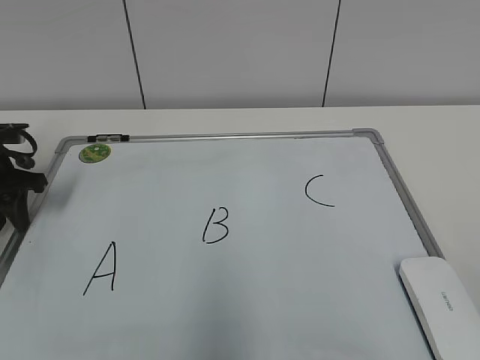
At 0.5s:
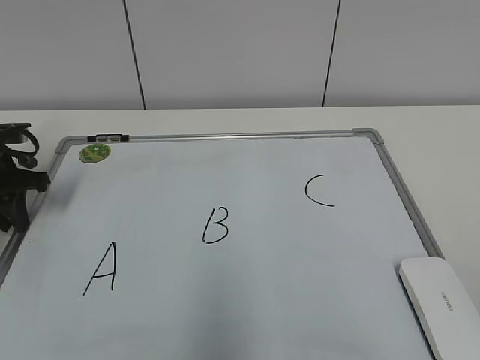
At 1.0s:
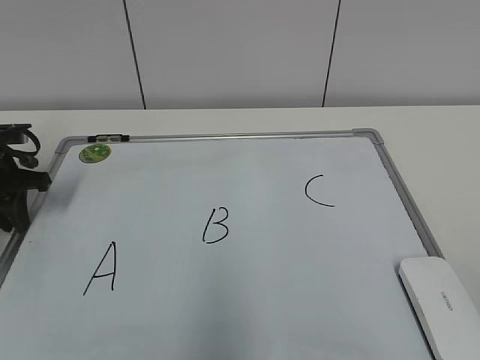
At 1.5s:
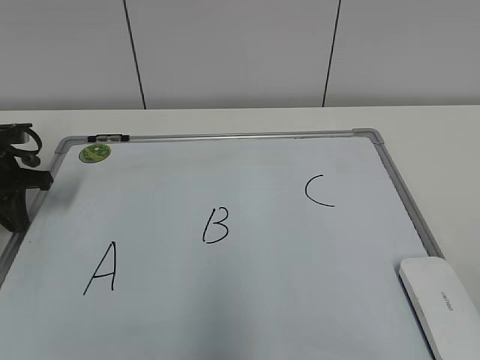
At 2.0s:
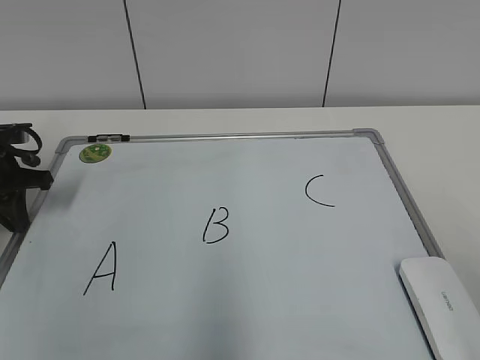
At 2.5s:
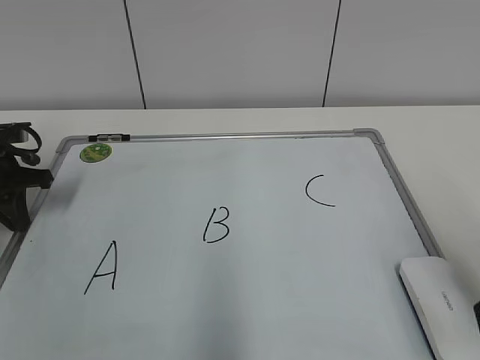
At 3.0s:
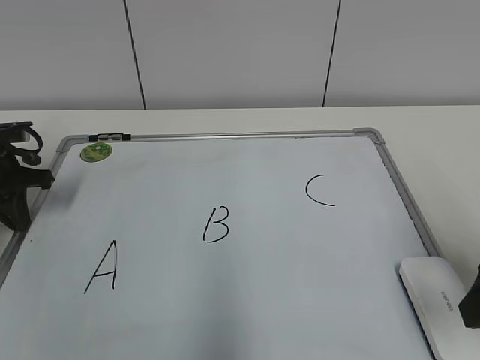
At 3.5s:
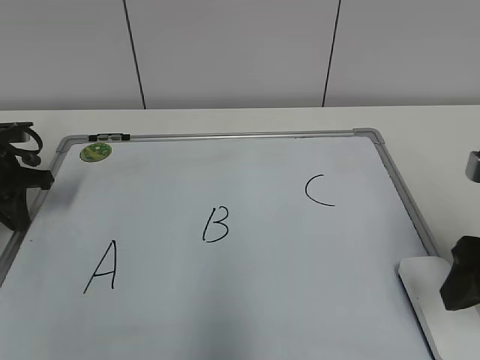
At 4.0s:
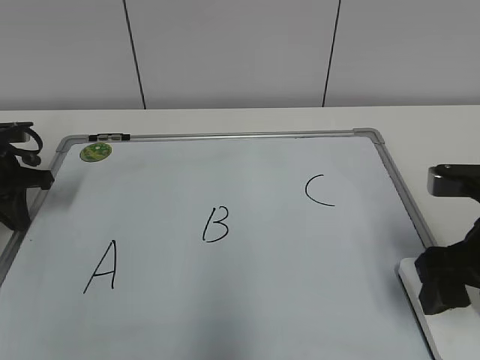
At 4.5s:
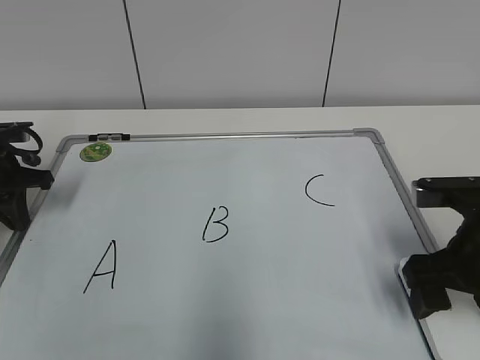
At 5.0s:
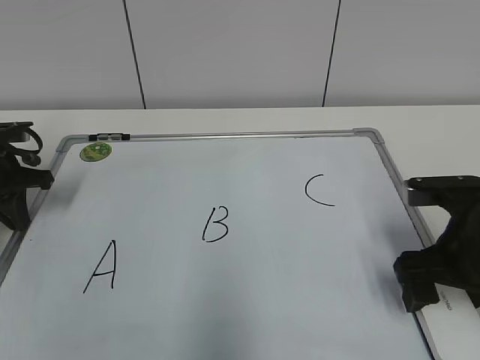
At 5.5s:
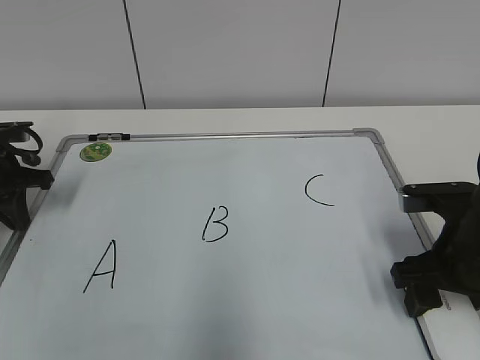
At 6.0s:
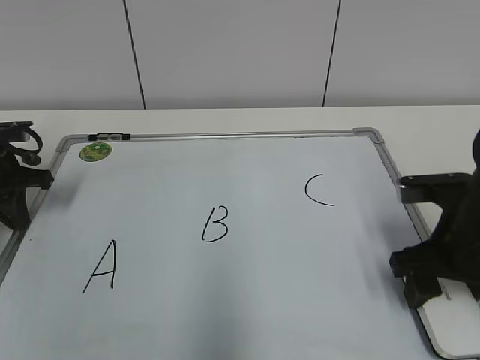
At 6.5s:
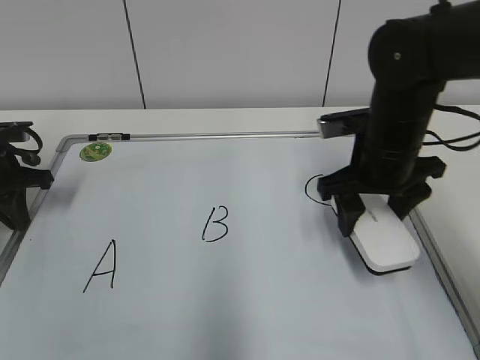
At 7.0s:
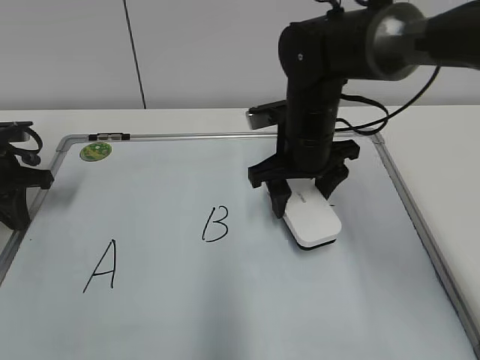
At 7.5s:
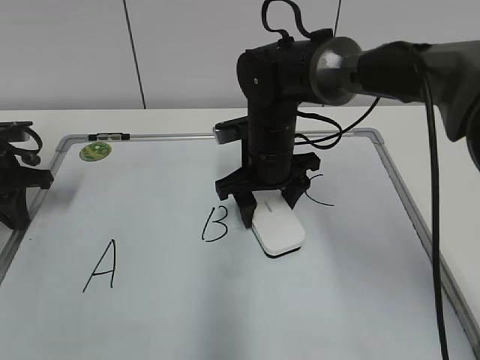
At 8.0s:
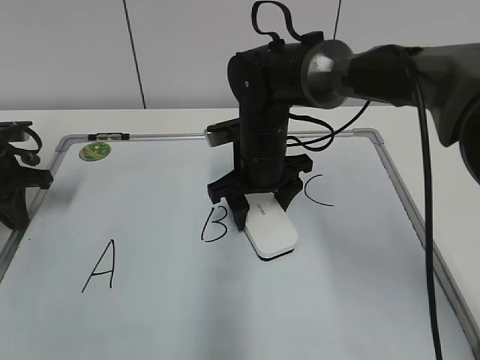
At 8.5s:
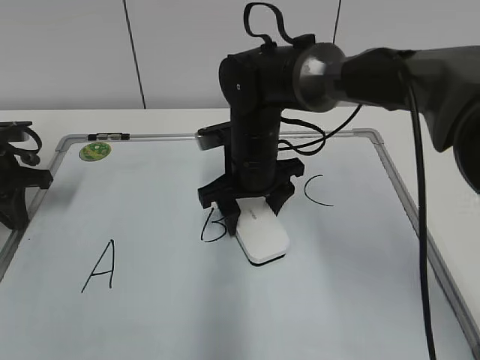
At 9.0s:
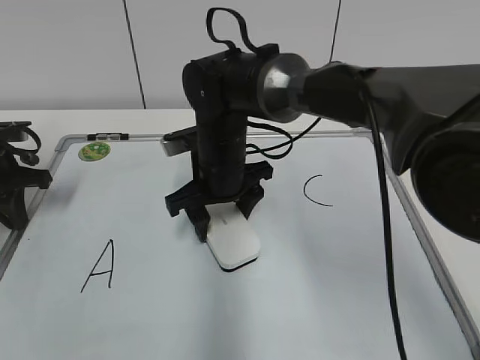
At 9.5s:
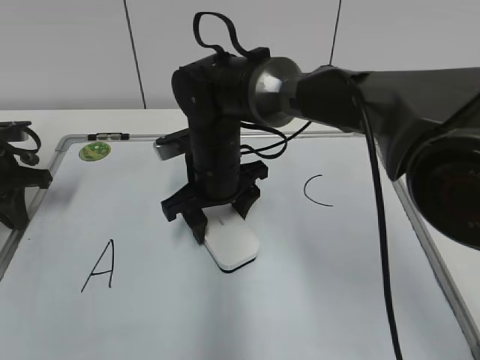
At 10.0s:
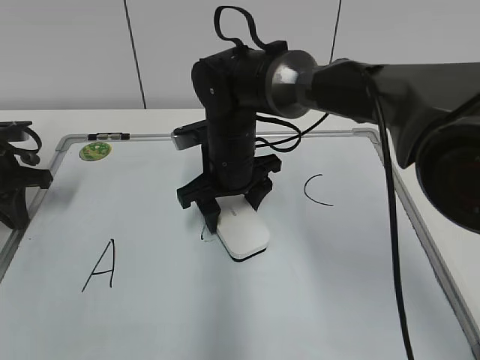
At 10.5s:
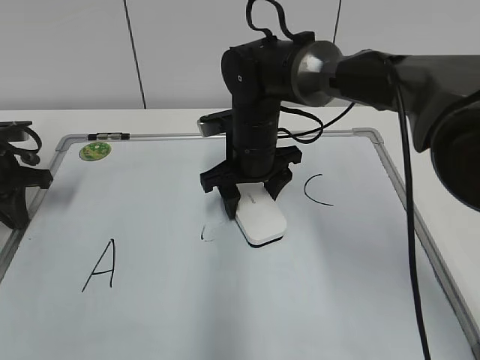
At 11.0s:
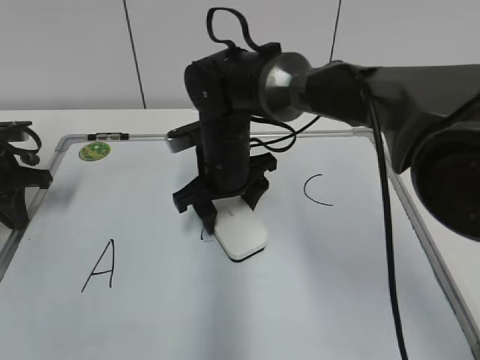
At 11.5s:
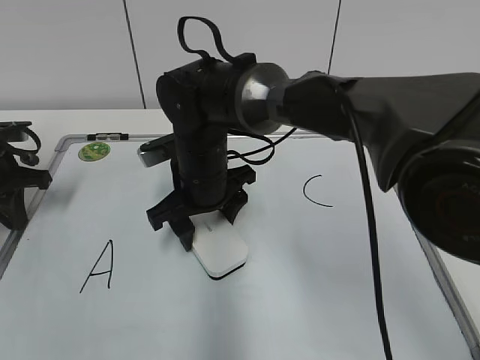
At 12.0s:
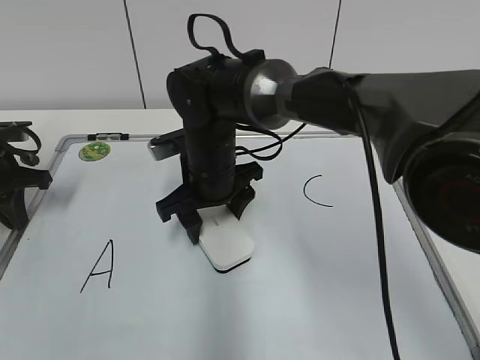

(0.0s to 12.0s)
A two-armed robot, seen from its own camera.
Task of the whole recording: pick up the eraser on the blackboard and erase the letter "B".
Step, 1.5s - 5.5s: Grab the eraser with your right hand.
0.0s - 2.0s: The left gripper closes its fingers.
2.0s - 4.0s: The right gripper heads forward and downward, covering approximately 20 cm.
4.0s - 6.0s: The right gripper moves some 5 cm, and closes.
6.0s - 8.0s: The right gripper is displaced to the left and forward by about 25 cm.
10.0s - 12.0s: The grippers stay close to where they were, moving slightly.

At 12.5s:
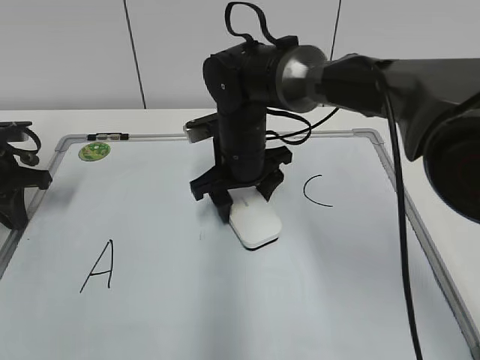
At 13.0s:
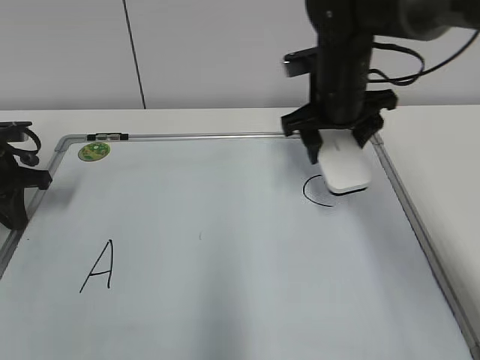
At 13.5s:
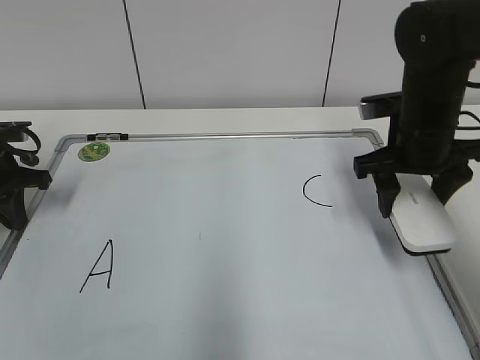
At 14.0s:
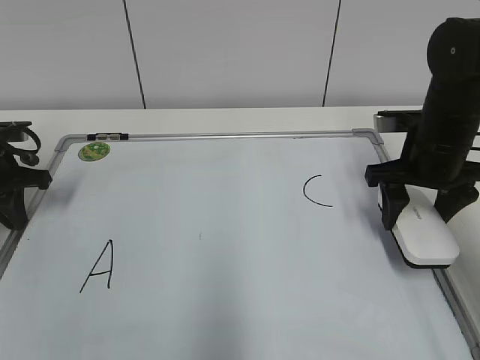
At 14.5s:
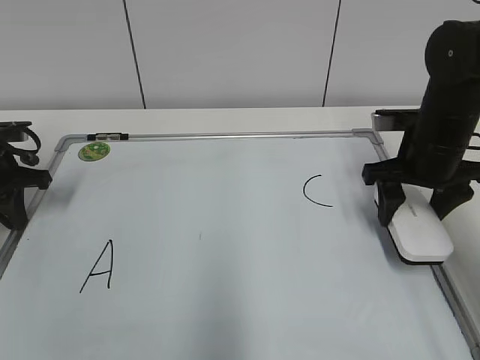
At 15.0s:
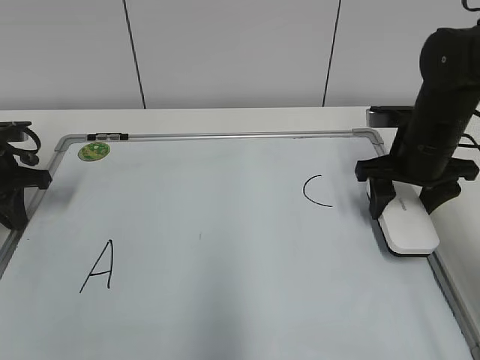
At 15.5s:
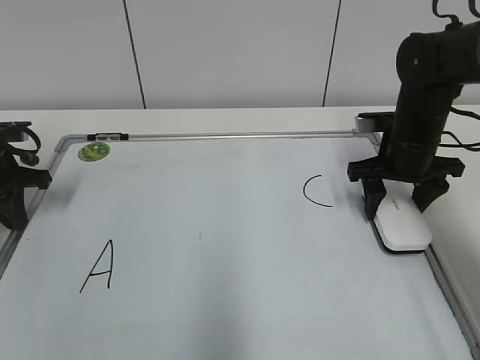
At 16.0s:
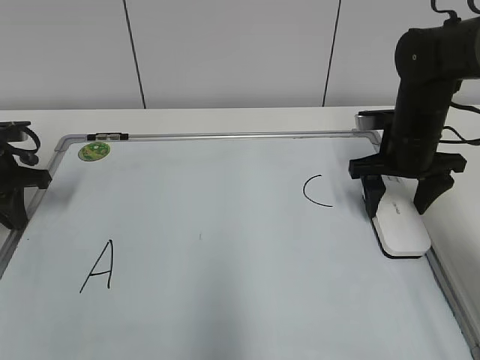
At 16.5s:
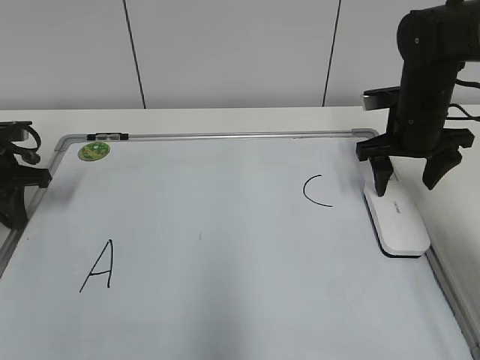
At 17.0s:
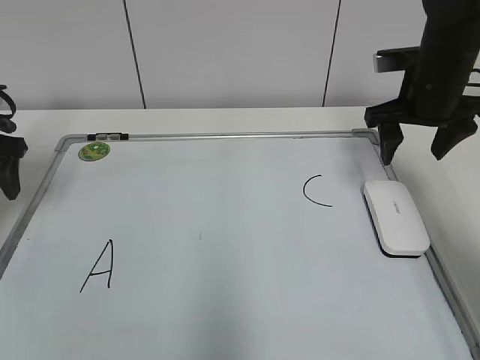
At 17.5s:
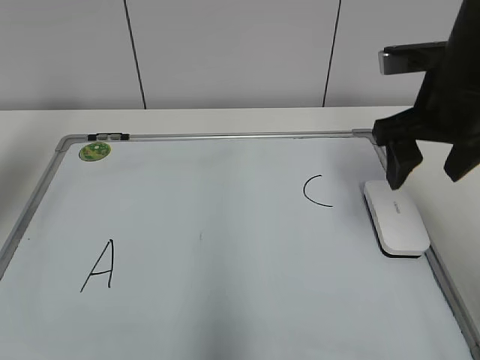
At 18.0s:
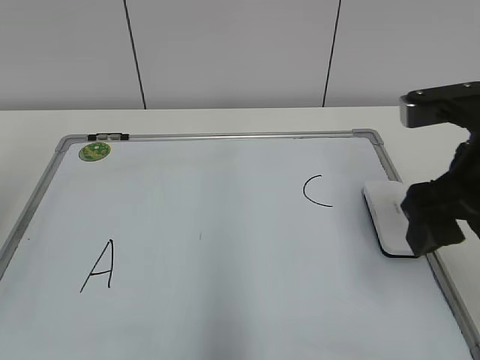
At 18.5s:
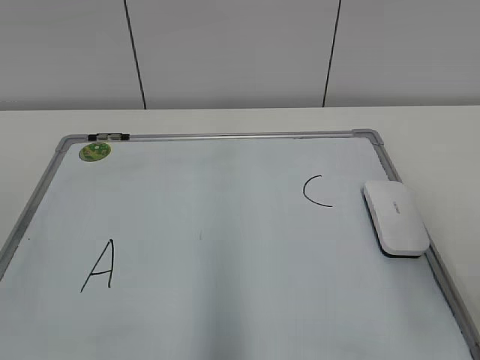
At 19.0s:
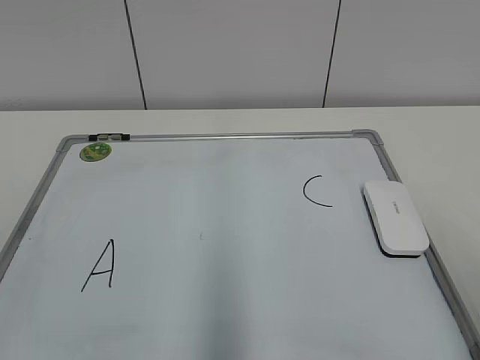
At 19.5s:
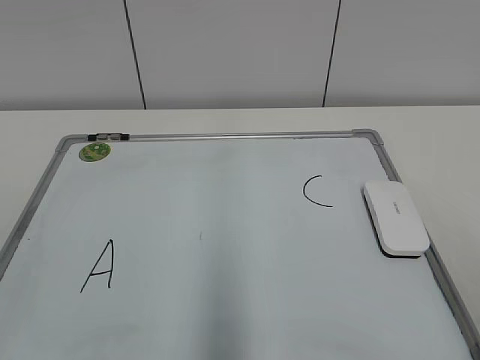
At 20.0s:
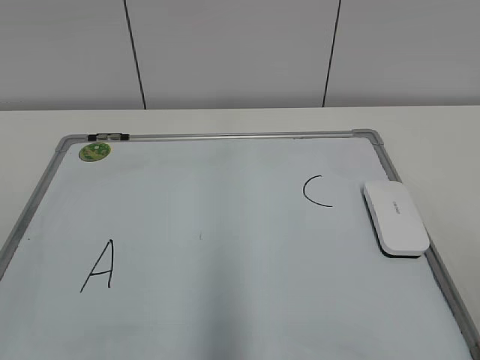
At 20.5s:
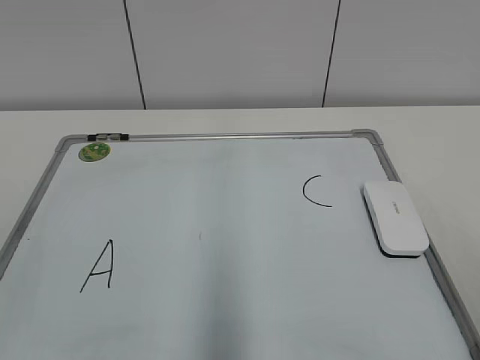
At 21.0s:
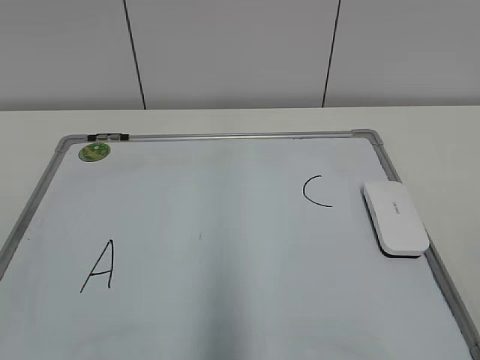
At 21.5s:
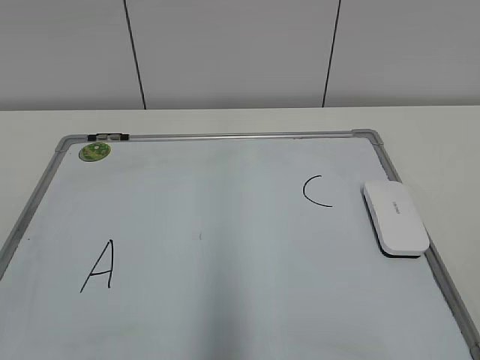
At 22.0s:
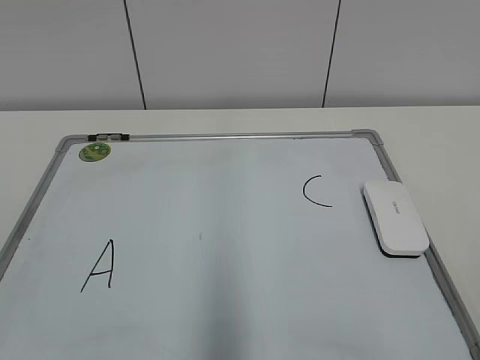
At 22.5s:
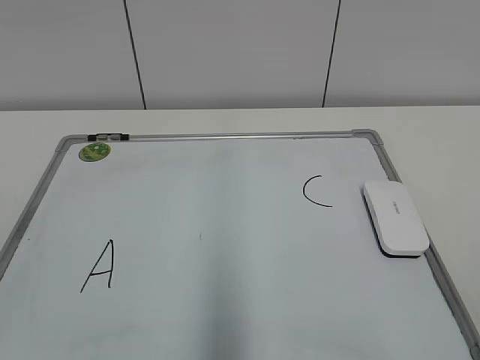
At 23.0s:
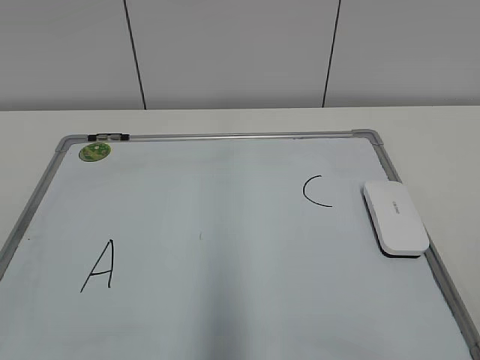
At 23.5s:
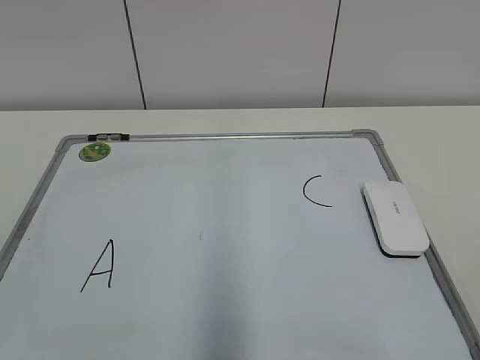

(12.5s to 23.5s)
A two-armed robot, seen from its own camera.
Task of the whole recording: pick up the eraser on the blackboard and erase the letter "B".
Step, 12.5s - 16.0s: Put down the eraser with your right hand.
12.5s - 14.5s: The right gripper shifts approximately 20 cm to the right.
14.5s - 16.0s: The right gripper opens its fingers.
16.0s - 18.0s: Both grippers travel together backward and upward, approximately 25 cm. The left gripper opens up.
18.0s - 20.0s: The right gripper moves backward and to the right, some 20 cm.

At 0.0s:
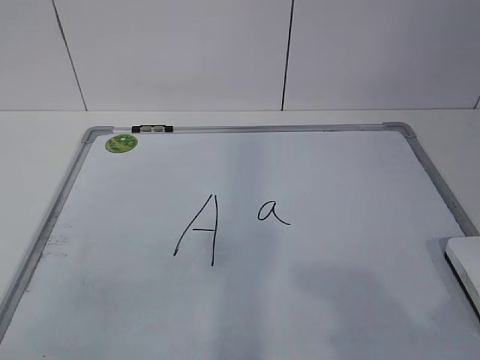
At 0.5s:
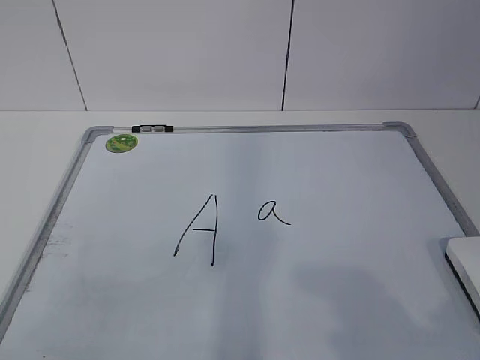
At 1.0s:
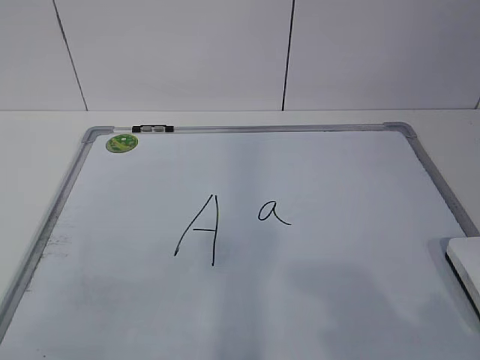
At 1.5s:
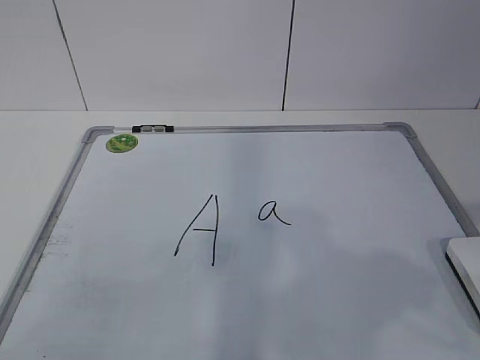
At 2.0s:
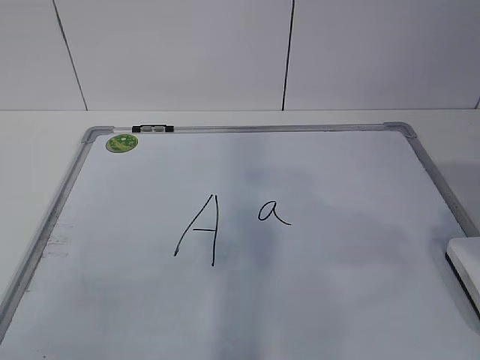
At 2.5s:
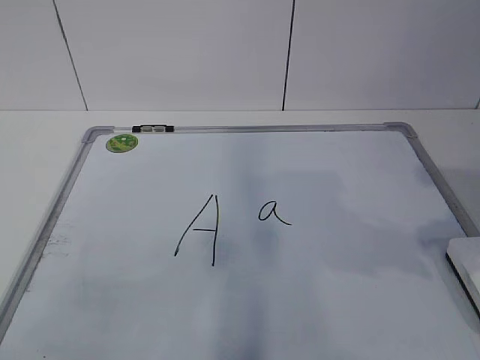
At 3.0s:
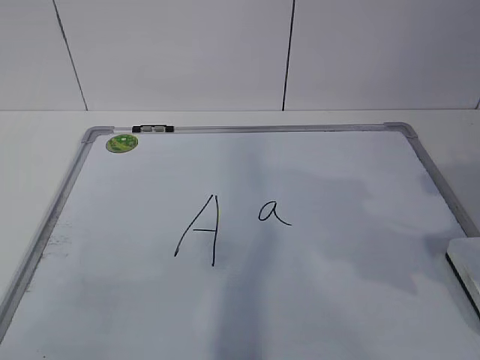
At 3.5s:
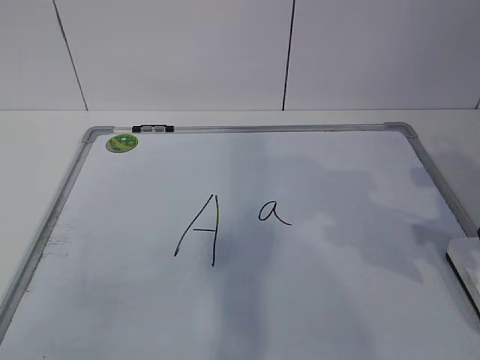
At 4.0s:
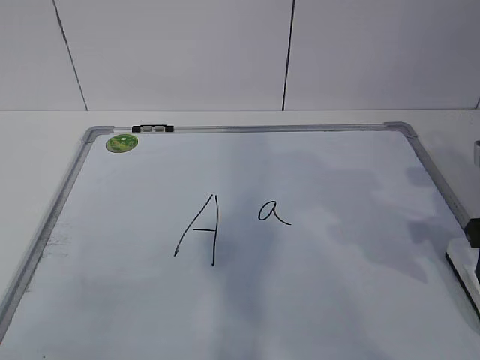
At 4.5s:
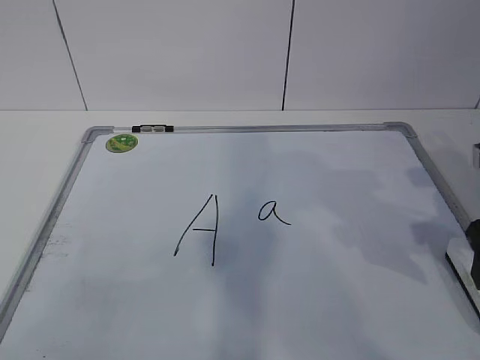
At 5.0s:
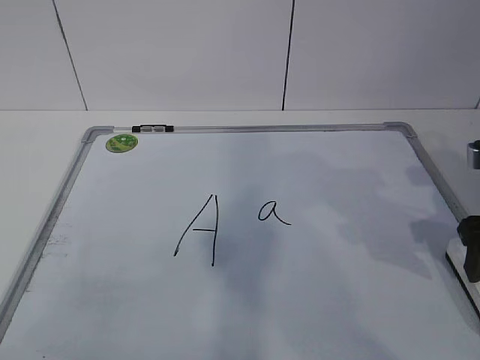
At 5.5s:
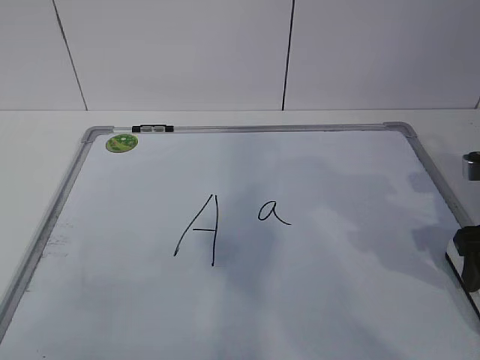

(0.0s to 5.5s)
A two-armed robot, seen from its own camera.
Task of the whole recording: pick up the eraser on the blackboard and erase the letter "a".
3.5s - 5.5s: The right gripper opens its fingers.
